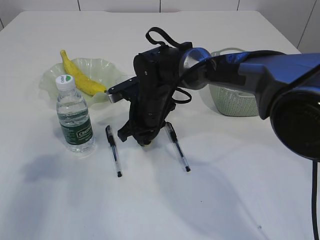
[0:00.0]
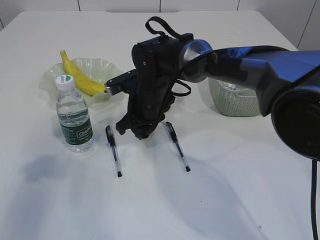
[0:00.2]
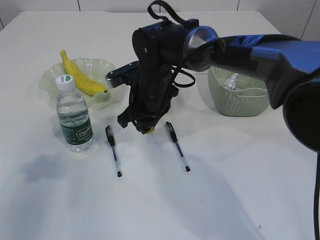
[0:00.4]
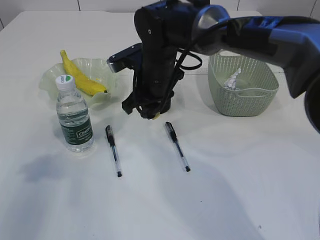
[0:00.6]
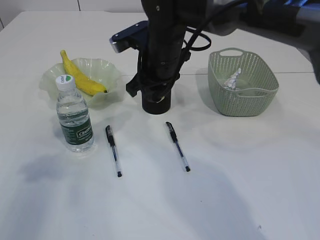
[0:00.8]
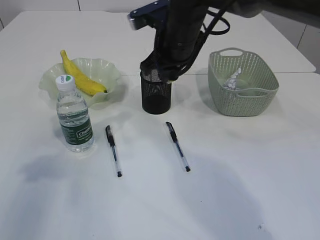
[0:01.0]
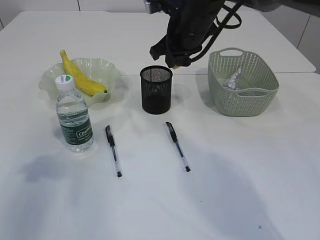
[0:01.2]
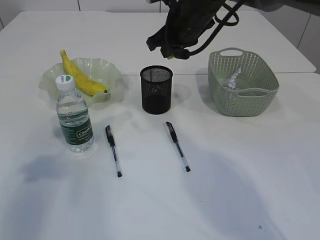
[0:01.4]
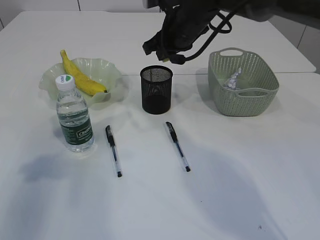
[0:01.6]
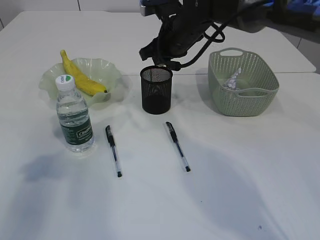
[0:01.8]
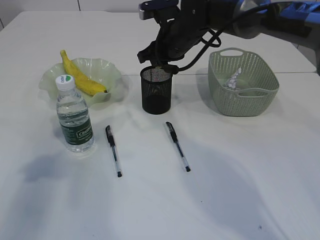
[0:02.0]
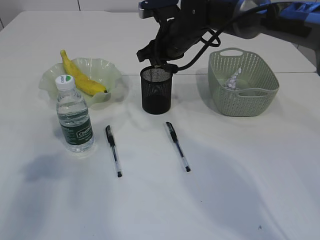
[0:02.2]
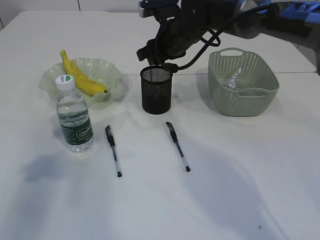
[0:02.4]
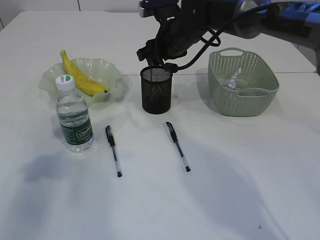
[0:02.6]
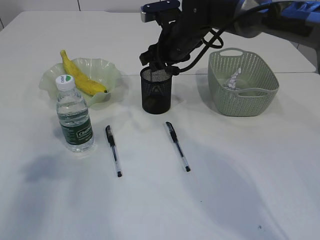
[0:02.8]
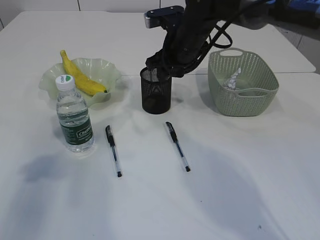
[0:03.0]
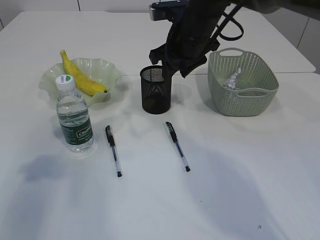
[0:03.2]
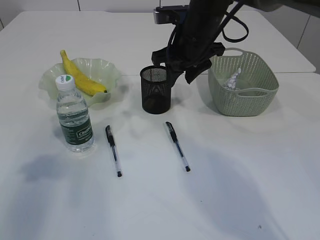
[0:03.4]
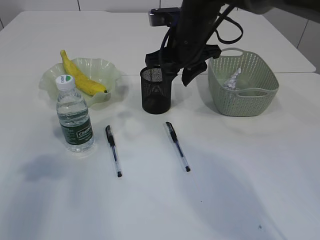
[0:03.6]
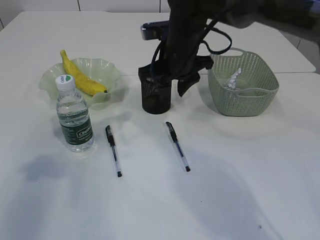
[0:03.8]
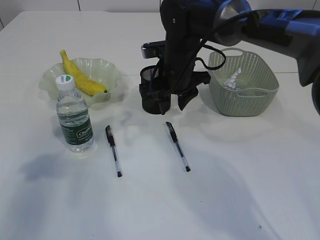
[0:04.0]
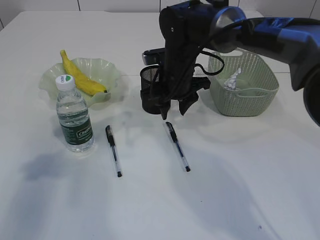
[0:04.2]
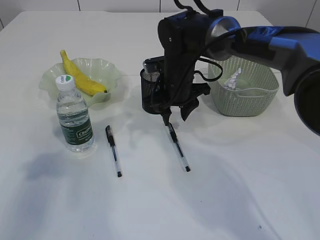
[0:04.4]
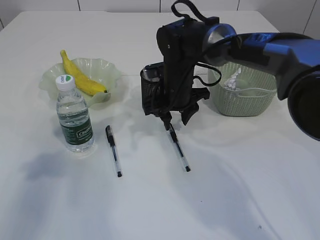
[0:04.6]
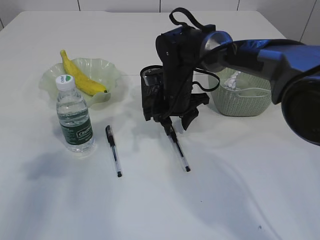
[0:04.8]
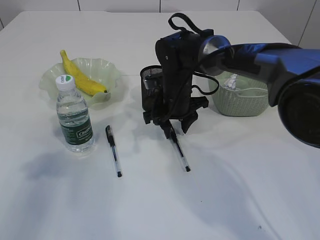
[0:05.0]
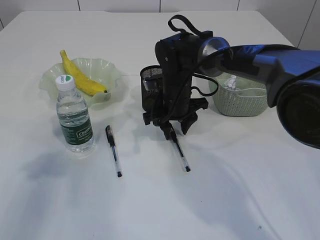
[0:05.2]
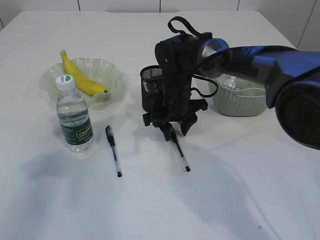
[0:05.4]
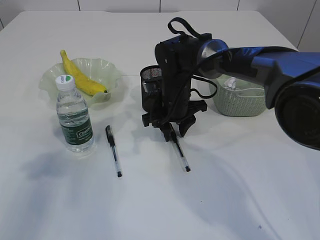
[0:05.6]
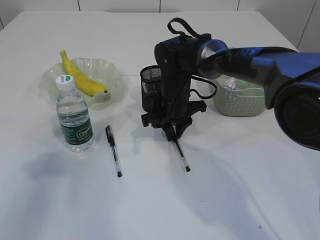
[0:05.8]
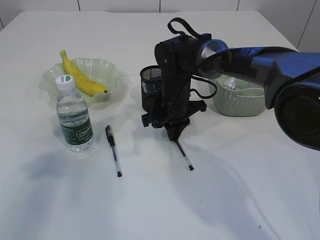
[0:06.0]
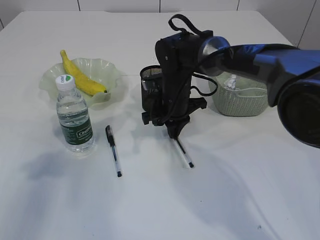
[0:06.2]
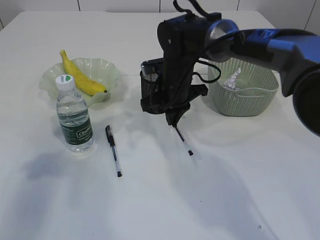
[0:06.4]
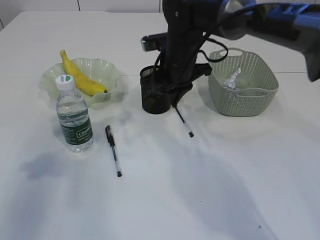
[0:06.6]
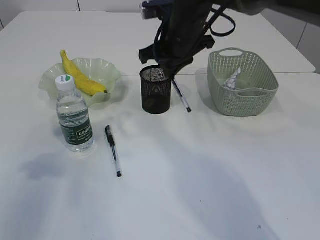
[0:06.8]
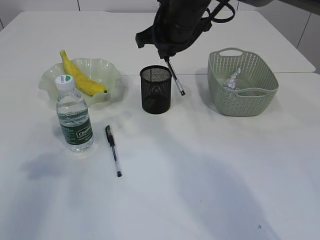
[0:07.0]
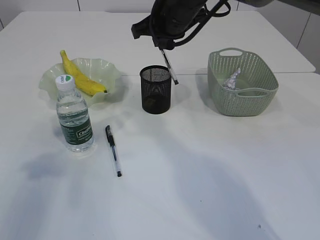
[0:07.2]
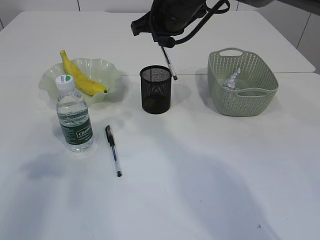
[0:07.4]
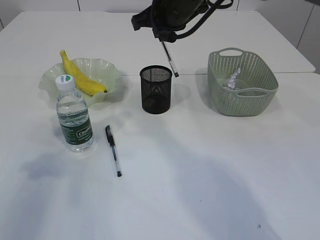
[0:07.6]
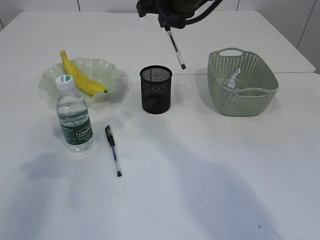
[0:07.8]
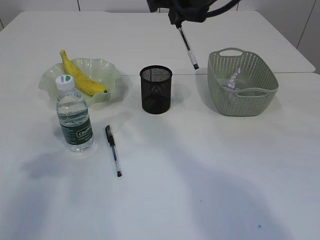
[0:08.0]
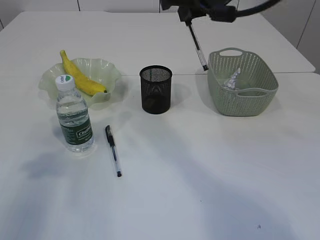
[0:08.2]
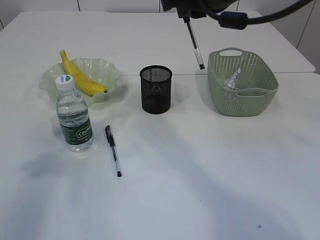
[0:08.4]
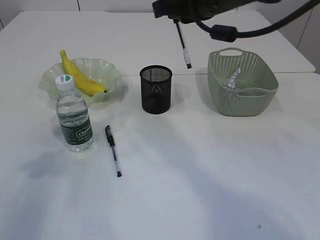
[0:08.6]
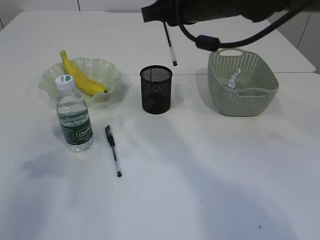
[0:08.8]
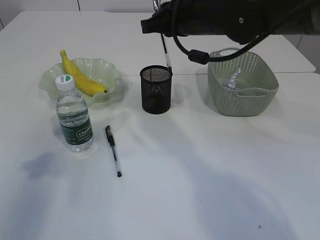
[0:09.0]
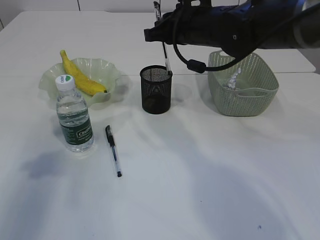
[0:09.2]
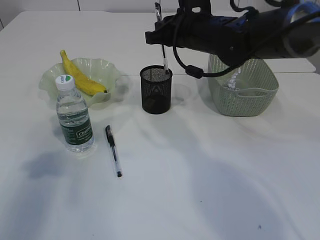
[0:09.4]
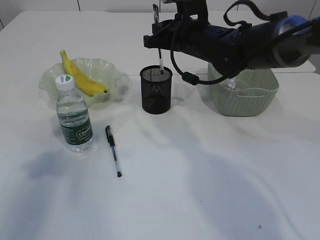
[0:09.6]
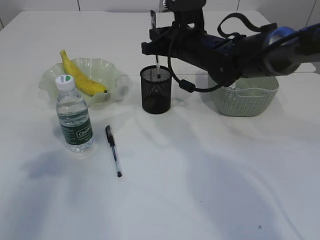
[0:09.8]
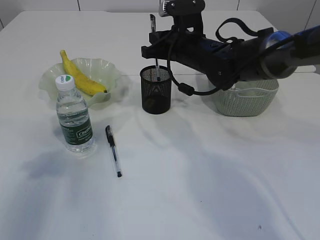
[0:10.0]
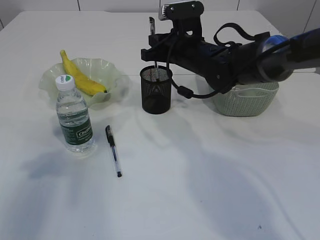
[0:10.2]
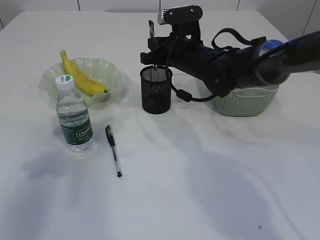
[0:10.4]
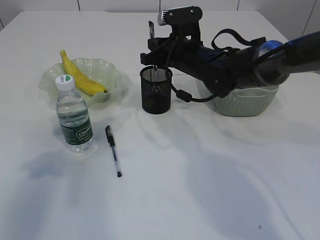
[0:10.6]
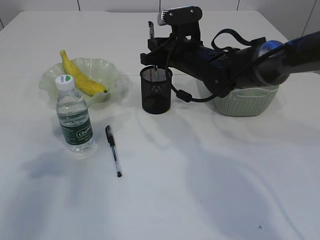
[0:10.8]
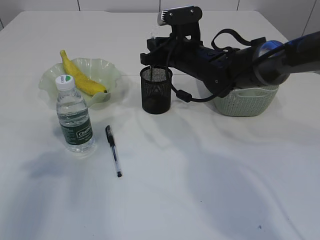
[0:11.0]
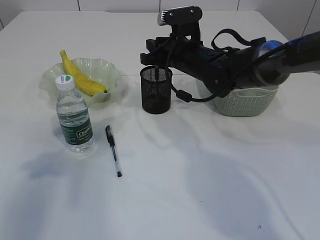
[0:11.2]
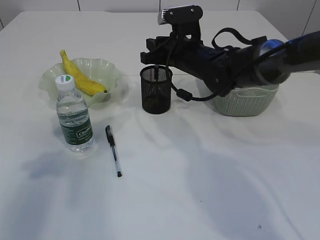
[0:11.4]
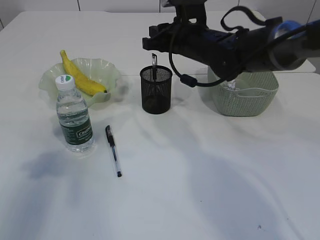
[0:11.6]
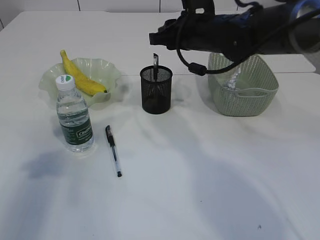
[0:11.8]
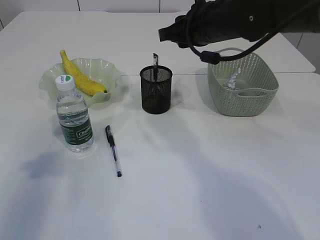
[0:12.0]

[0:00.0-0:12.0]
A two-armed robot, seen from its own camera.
Step, 0:00.6 to 0:02.6: Place the eraser into the pen holder.
Step, 0:02.8 to 0:06.6: Pick up the pen with right arm.
Step, 0:06.8 to 0:11.6: Place the pen into the pen holder.
0:00.0 to 0:01.6: The right gripper goes some 15 cm upward and to the right.
0:01.6 to 0:03.0: The right gripper opens its fingers.
0:03.0 to 0:04.4: The right gripper moves downward, about 5 cm.
0:04.4 to 0:06.0: The right gripper closes.
0:06.0 to 0:07.6: The right gripper shifts roughly 20 cm upward.
0:09.0 to 0:10.4: The right gripper shifts approximately 10 cm downward.
0:10.4 to 0:12.0: The right gripper heads upward, covering some 10 cm.

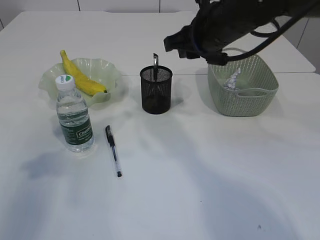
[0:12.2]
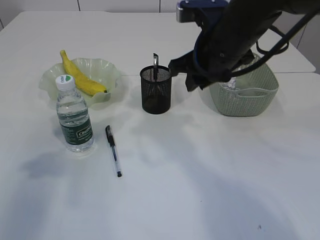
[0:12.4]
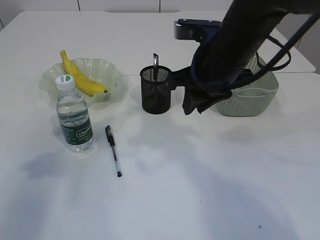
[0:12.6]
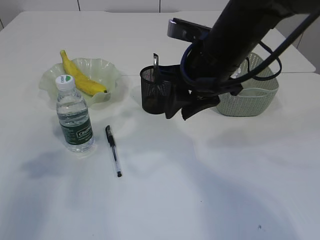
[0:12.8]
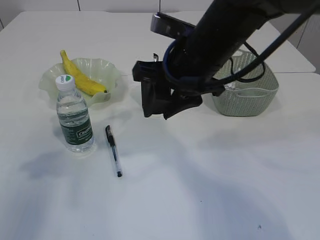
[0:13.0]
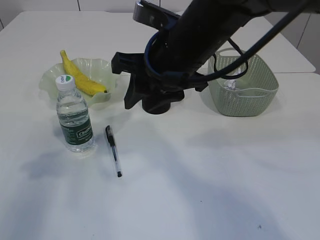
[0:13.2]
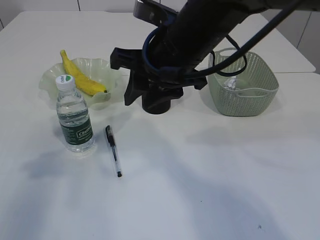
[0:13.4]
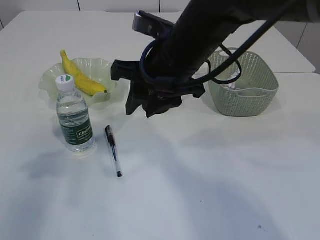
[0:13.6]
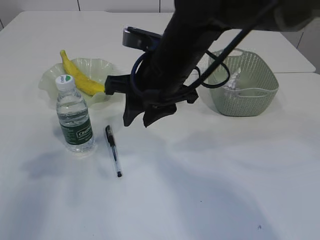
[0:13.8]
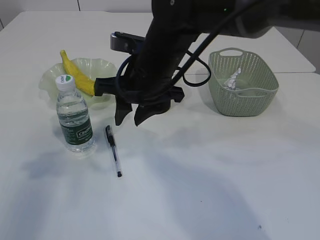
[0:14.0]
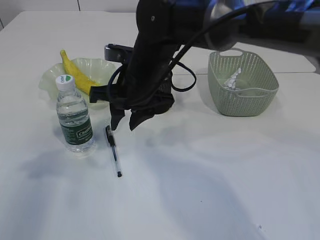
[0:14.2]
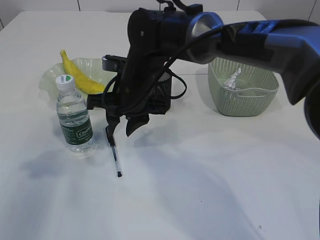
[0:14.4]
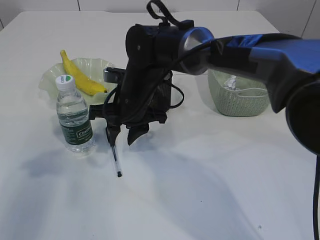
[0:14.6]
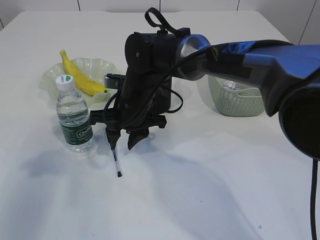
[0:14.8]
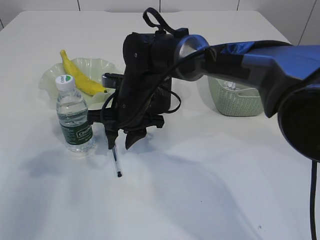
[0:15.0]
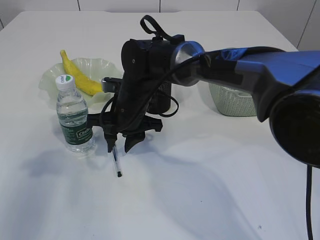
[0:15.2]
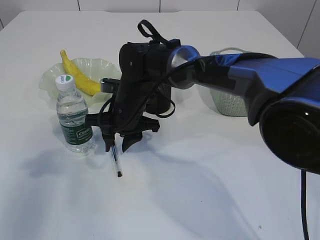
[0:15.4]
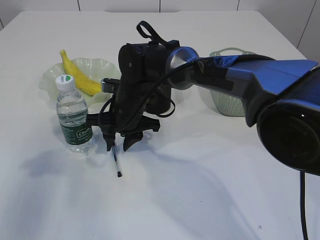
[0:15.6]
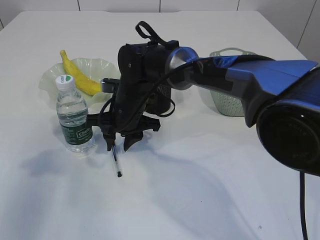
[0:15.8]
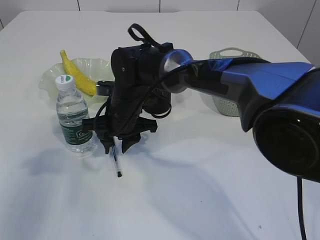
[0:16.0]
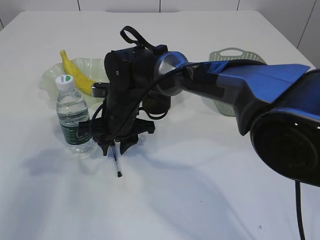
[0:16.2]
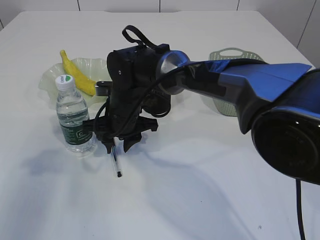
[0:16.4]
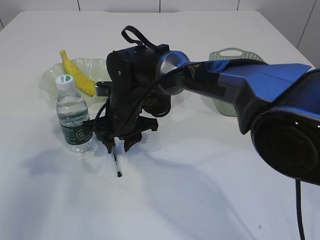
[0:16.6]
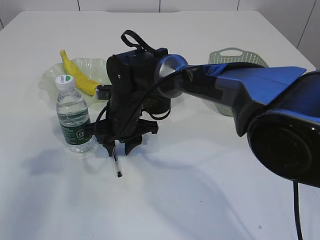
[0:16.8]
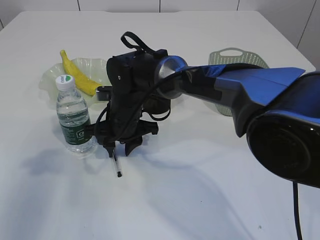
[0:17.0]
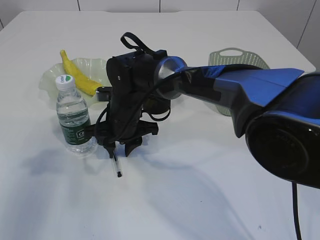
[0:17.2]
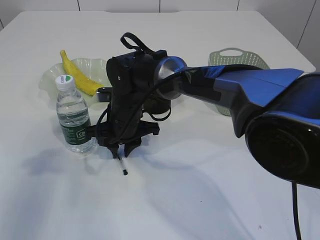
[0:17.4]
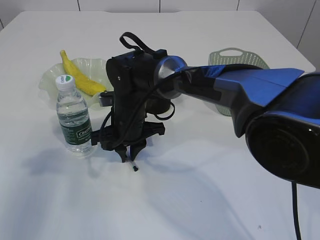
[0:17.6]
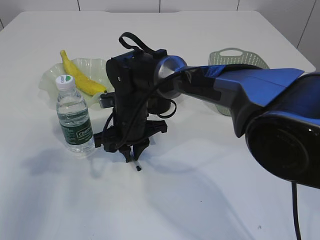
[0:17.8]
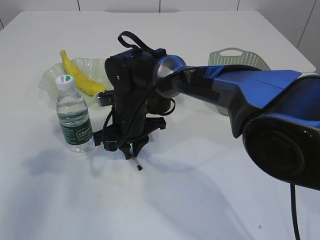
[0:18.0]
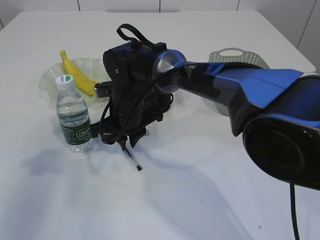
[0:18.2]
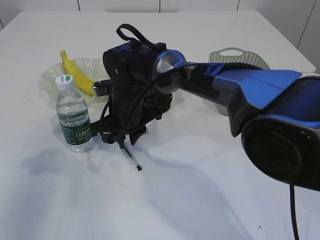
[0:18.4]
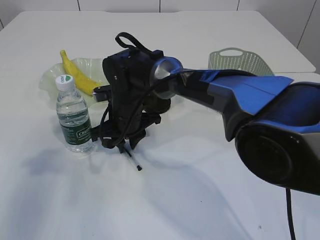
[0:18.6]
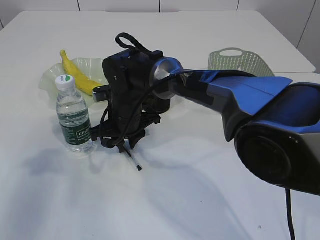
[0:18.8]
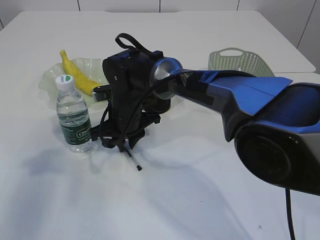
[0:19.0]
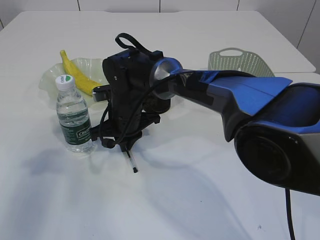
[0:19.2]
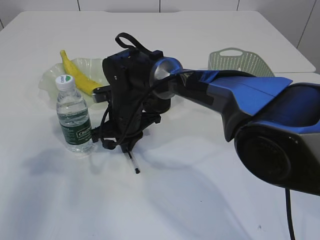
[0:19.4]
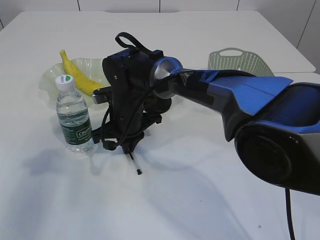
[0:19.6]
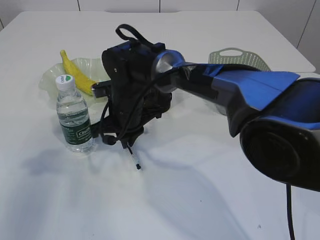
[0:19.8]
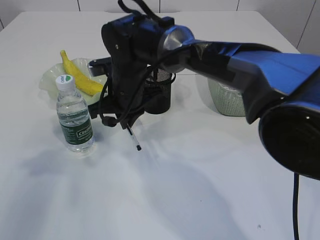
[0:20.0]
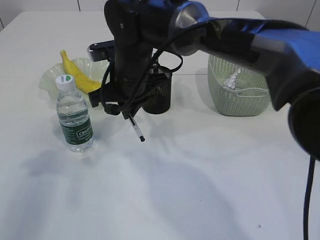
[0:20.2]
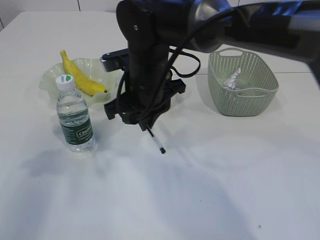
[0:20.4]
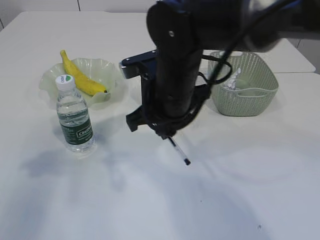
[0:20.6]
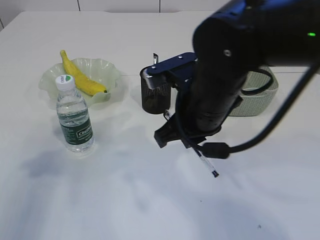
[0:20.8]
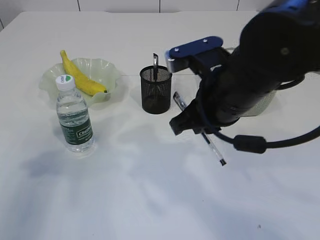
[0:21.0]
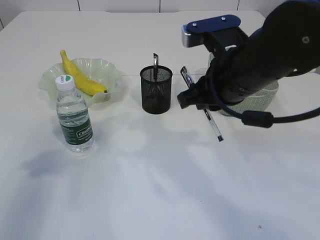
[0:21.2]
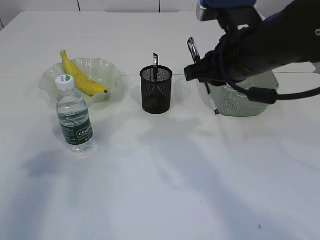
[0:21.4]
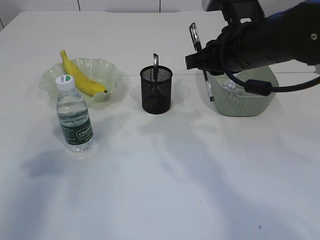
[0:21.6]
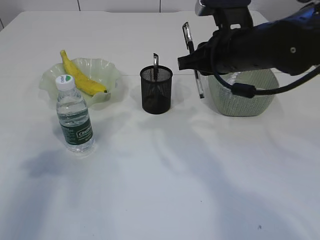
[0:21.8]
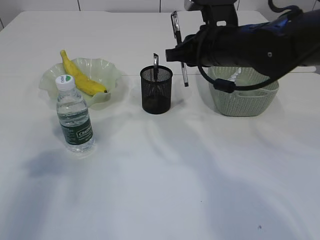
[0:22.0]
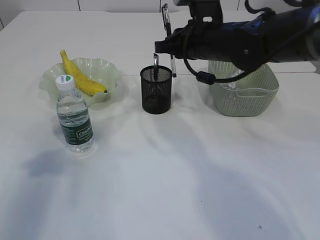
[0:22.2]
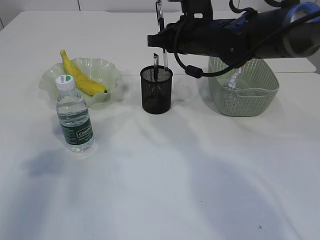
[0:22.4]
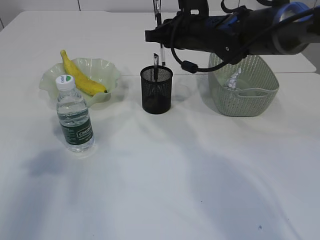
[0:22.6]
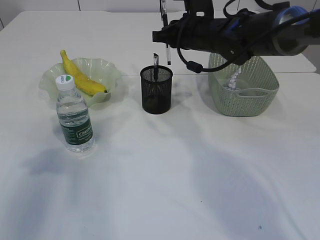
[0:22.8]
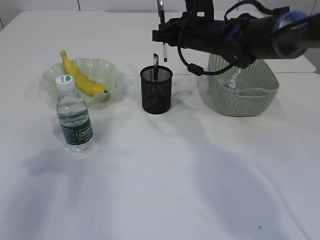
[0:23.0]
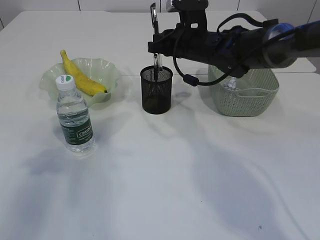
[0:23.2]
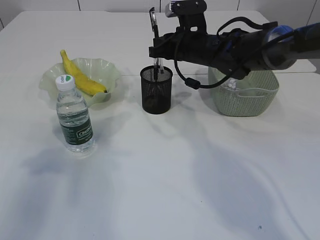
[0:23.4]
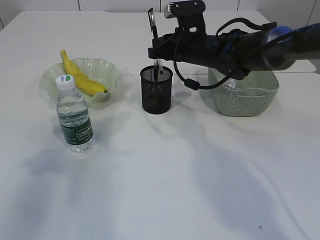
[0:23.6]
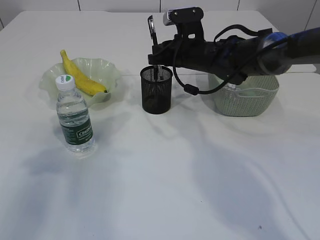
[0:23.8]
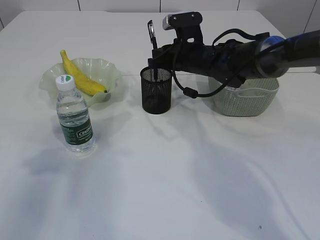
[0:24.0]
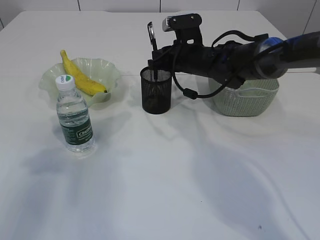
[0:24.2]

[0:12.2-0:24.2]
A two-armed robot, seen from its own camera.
Step, 0:12.2 to 0:20.0: Pick up the pen with right arm.
0:12.2 to 0:13.8: The right gripper travels to the left and backward by some 10 cm.
0:13.8 to 0:15.2: The right gripper goes roughly 15 cm downward, forward and to the left.
0:15.2 to 0:18.2: The grippers stay close to where they were, moving slightly.
0:18.2 to 0:19.8: The grippers move only a little.
0:19.8 to 0:21.2: The right gripper moves to the right, upward and backward, approximately 25 cm.
0:21.2 to 0:22.6: The right gripper heads forward, covering roughly 15 cm.
0:22.6 to 0:24.2: The right gripper shifts roughly 5 cm downward.
